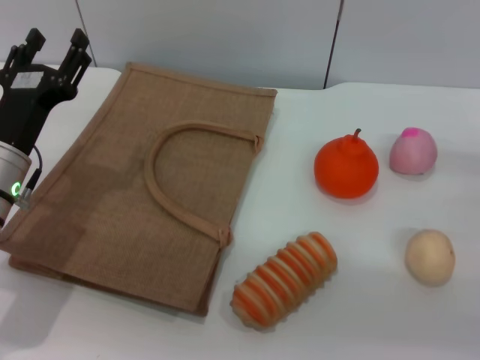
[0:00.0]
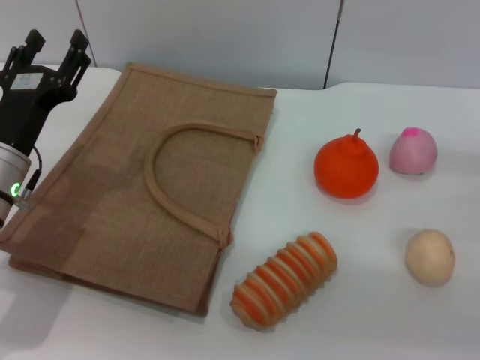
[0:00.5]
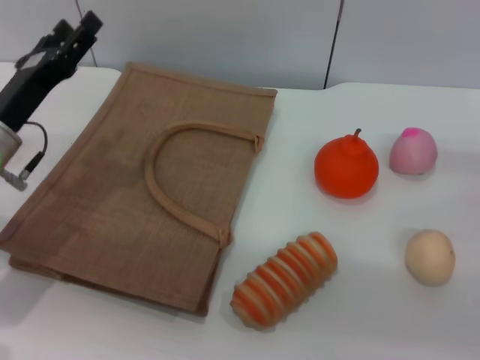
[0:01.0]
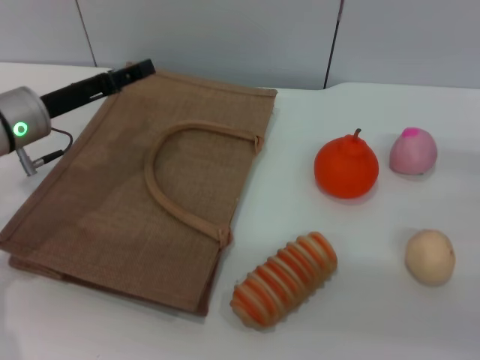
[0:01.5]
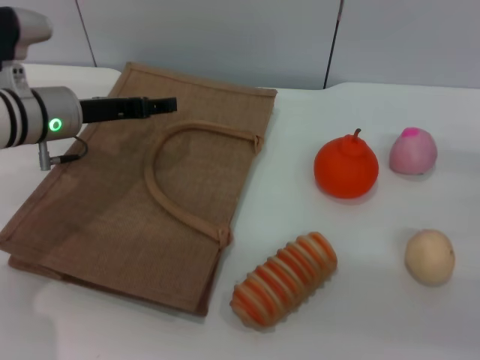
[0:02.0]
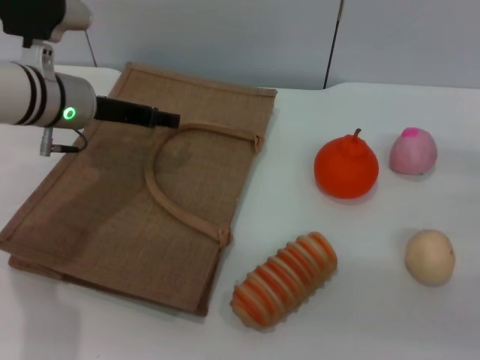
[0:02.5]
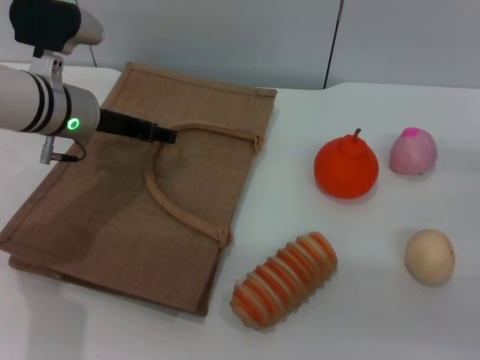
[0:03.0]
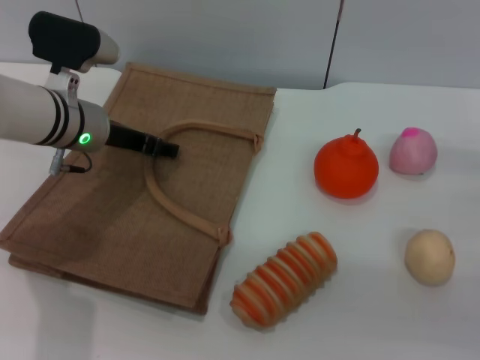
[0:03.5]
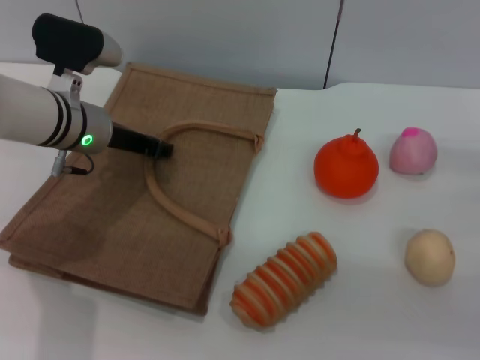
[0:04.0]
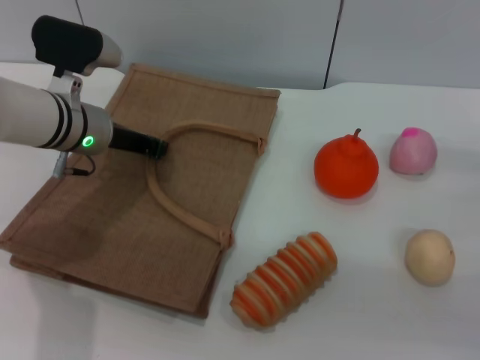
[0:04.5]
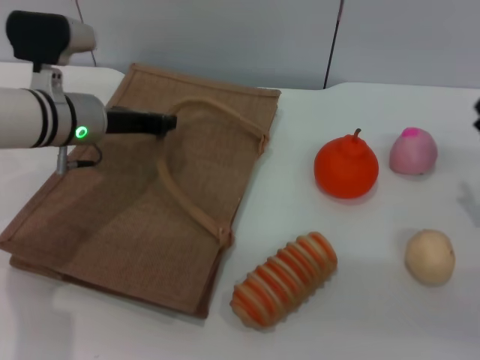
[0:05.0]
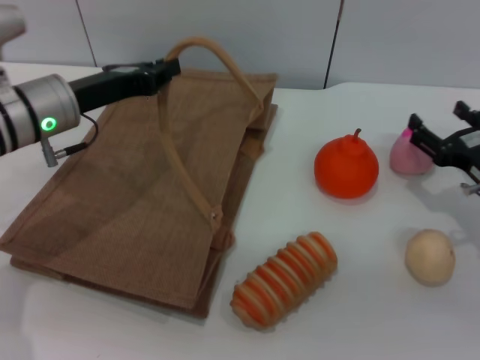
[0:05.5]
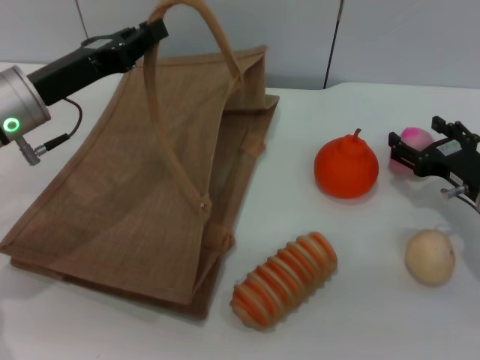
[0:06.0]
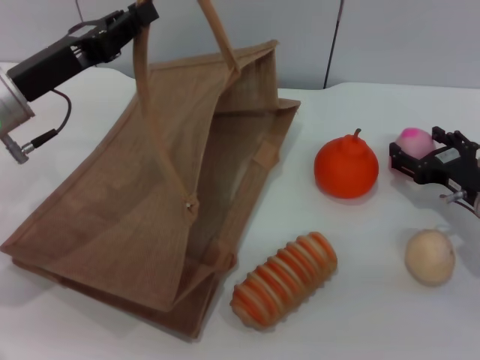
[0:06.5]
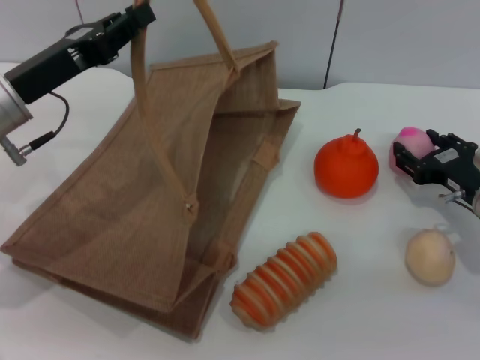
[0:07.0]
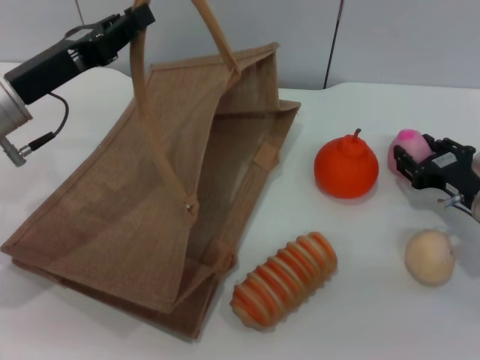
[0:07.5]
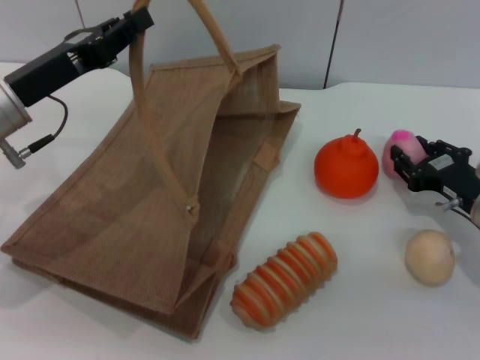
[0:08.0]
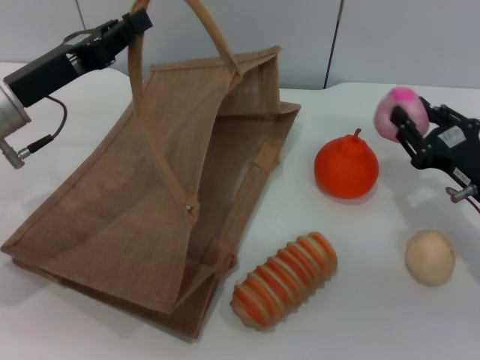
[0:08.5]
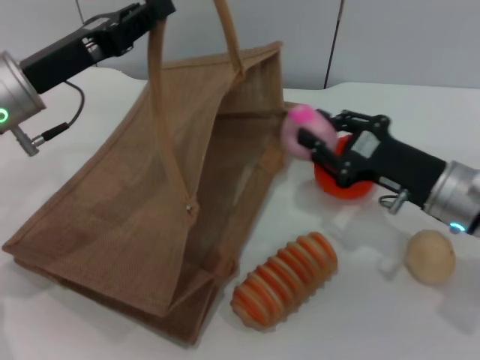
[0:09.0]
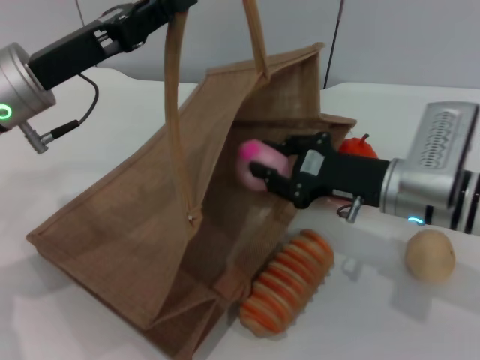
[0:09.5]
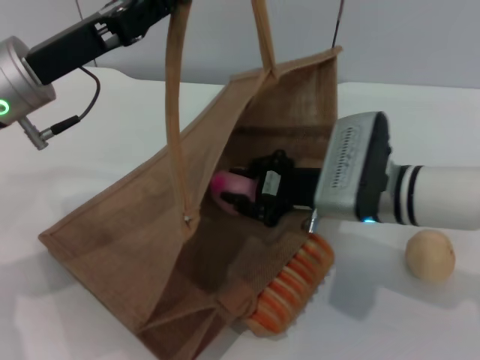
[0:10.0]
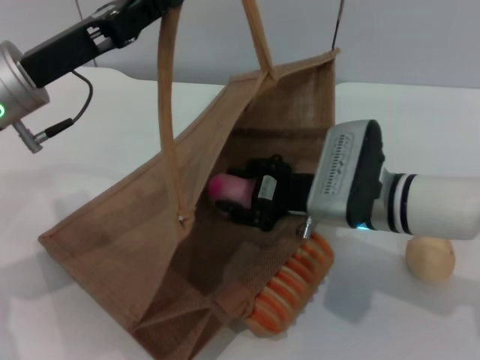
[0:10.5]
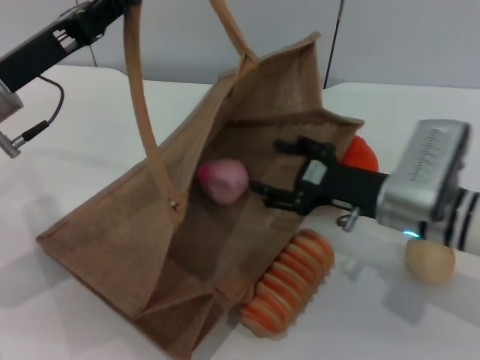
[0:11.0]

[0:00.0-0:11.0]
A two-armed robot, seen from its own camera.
Task of the whole recording: pick up the peach from the table and place it in the brown handbag.
Step, 0:00.0 to 0:04.5: Lift the woven bag with the left gripper to open it.
Step, 0:05.0 to 0:08.0: Pick up the peach with the right gripper.
0:00.0 to 0:02.0: The left gripper travels forward by roughly 10 cm.
0:03.5 to 0:05.5: The right gripper ends up about 5 cm from where it was. Meanwhile the left gripper closes its fingers.
0:05.5 to 0:07.5: The right gripper closes up, while the left gripper changes place by about 5 cm.
0:07.5 to 0:09.0: The right gripper travels to the left by approximately 5 cm, and closes.
0:09.0 to 0:11.0: The right gripper opens up.

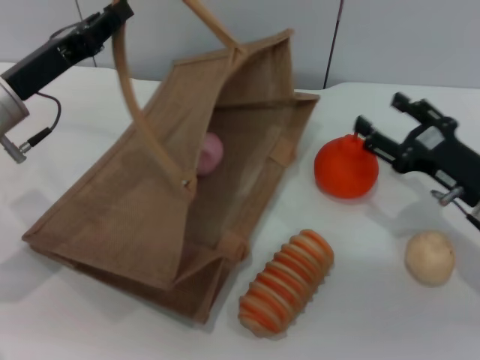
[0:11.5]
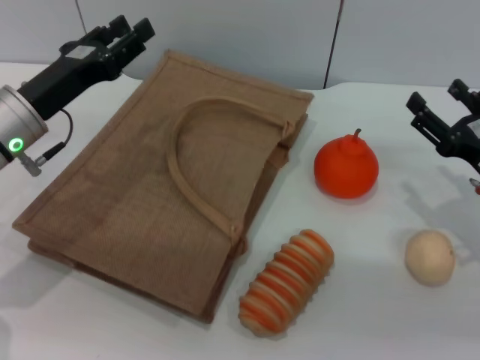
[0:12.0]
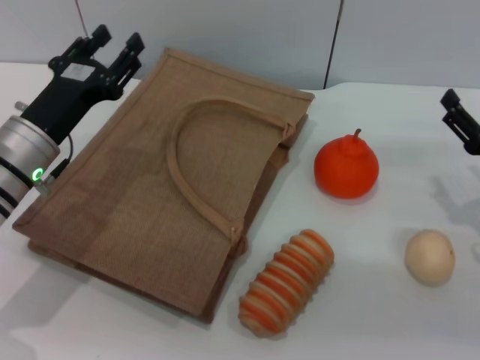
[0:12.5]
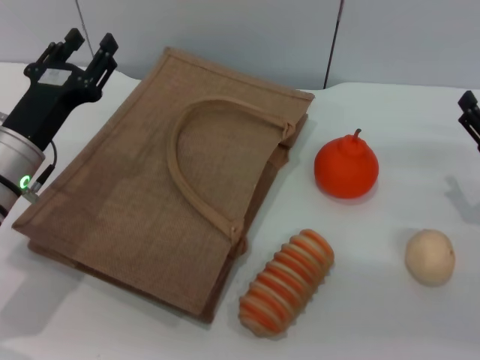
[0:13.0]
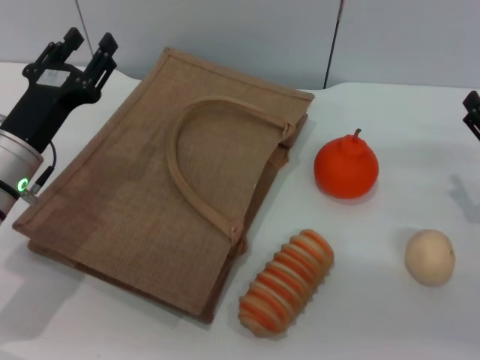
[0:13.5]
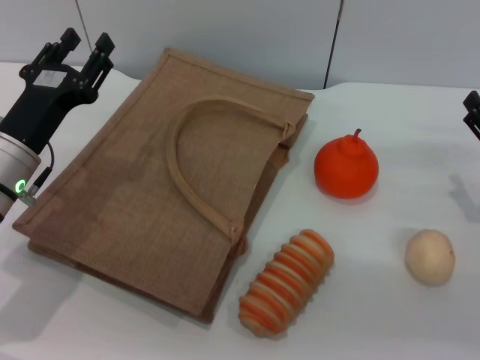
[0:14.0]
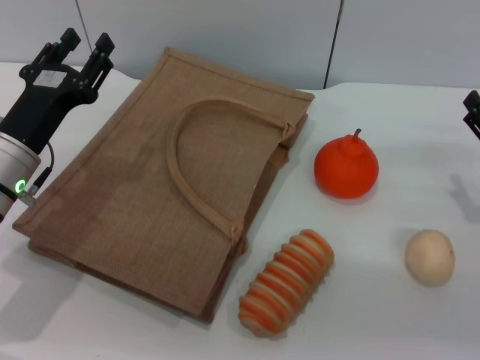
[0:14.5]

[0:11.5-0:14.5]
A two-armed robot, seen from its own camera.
Task of the whole recording: pick up the peach from the table and place it in the brown handbag.
Step, 0:11.5 to 0:12.0: Lower the woven bag with the left gripper to close it.
0:11.5 to 0:13.0: The right gripper shifts by some 5 cm, while the left gripper is displaced downward by roughly 5 cm, and opens its fingers.
0:13.0 to 0:14.5: The two grippers keep their place.
